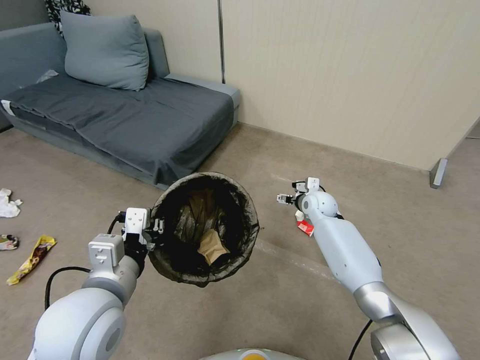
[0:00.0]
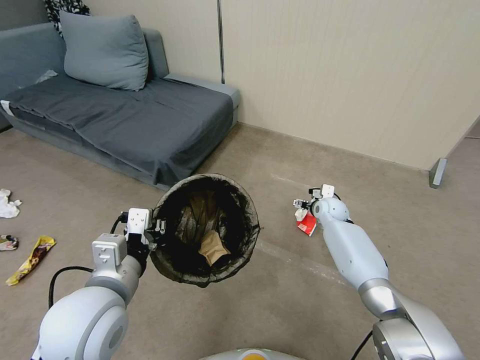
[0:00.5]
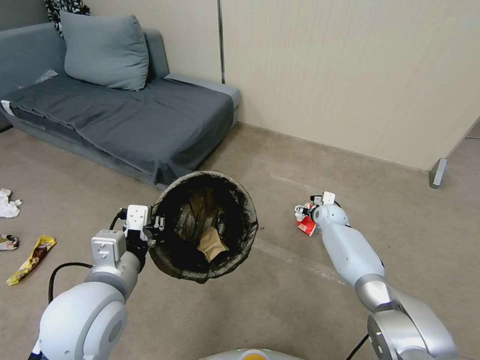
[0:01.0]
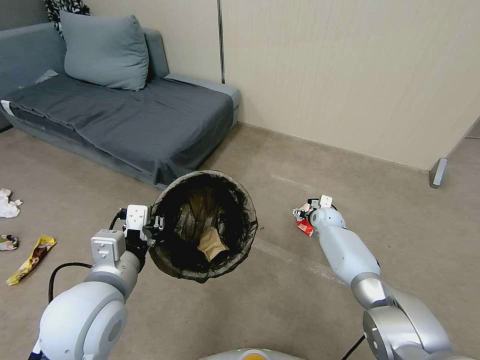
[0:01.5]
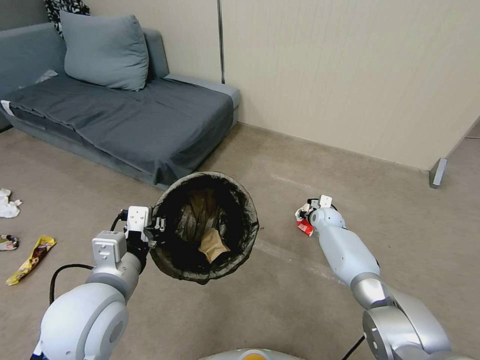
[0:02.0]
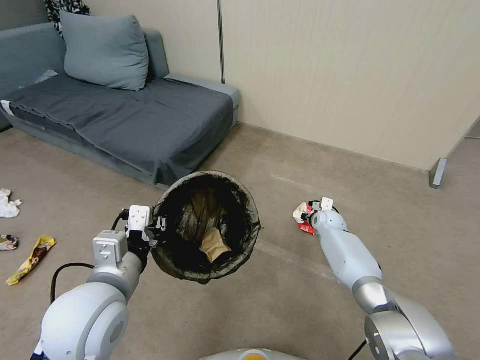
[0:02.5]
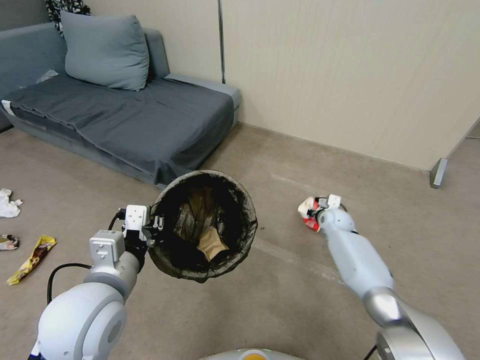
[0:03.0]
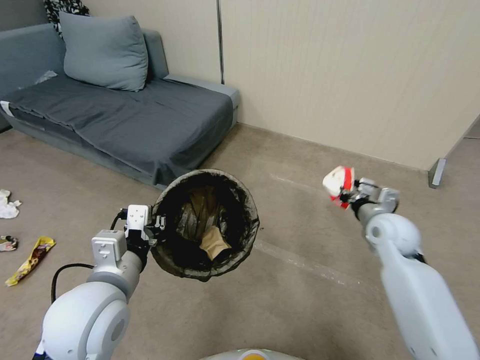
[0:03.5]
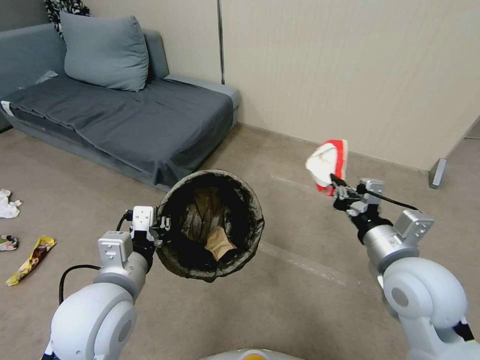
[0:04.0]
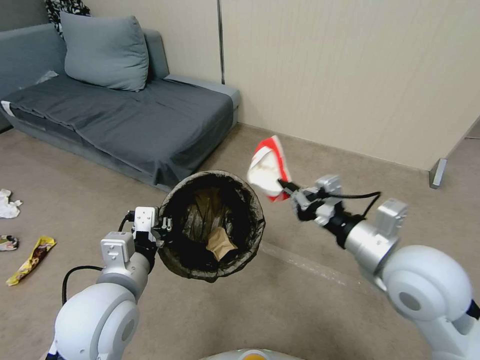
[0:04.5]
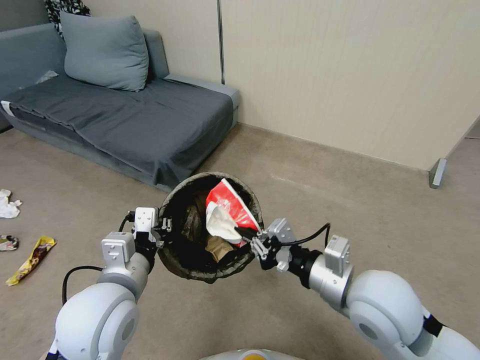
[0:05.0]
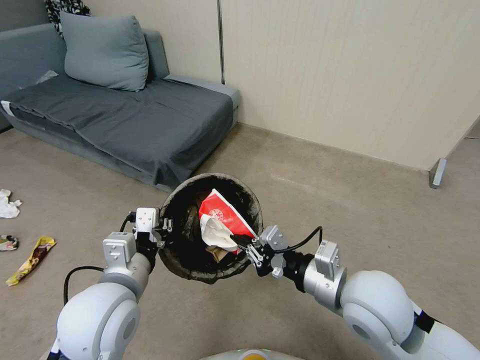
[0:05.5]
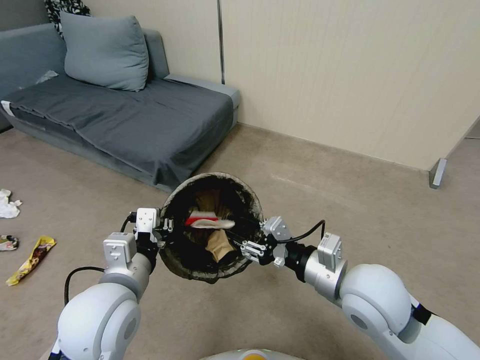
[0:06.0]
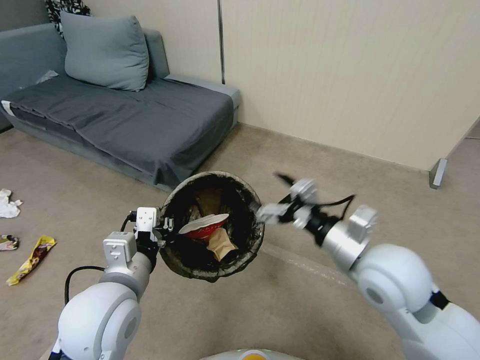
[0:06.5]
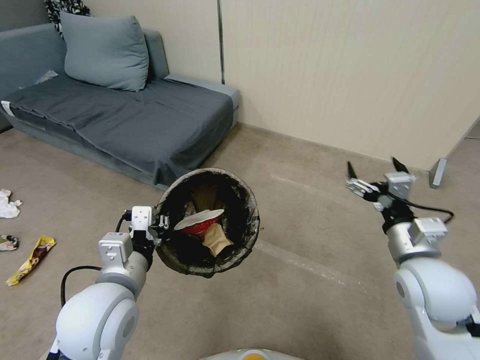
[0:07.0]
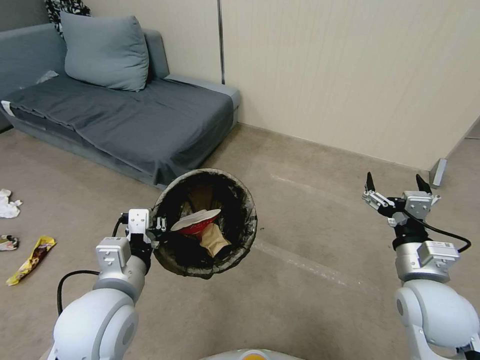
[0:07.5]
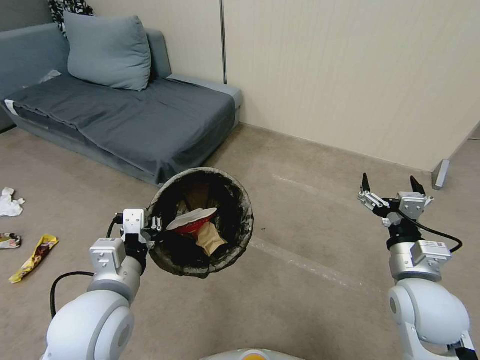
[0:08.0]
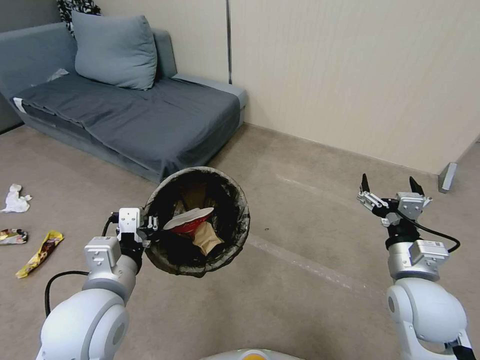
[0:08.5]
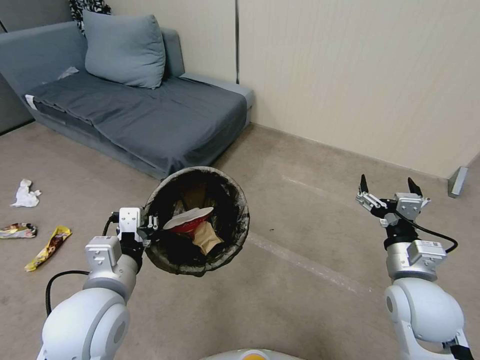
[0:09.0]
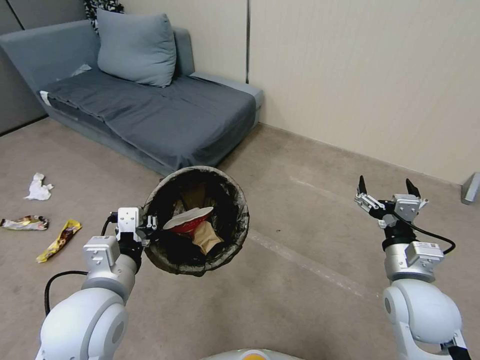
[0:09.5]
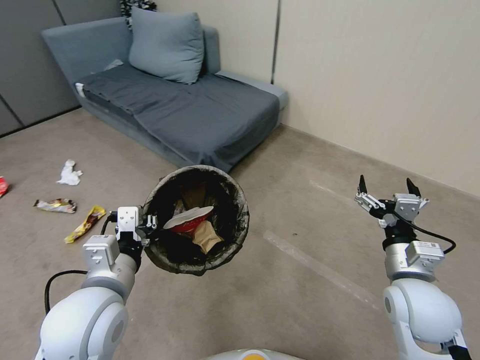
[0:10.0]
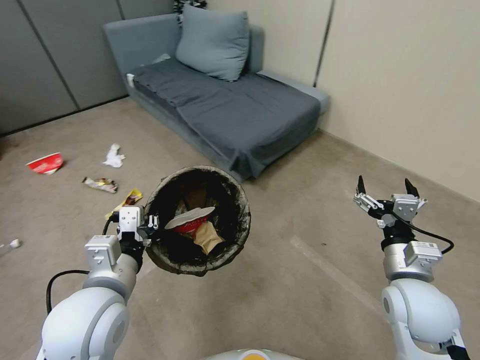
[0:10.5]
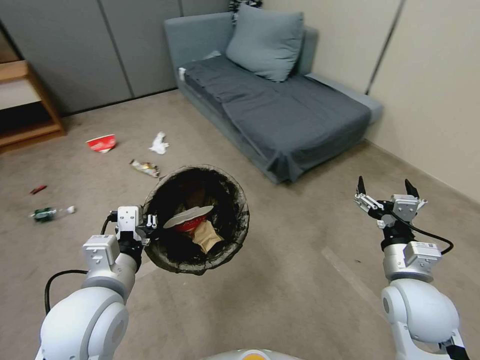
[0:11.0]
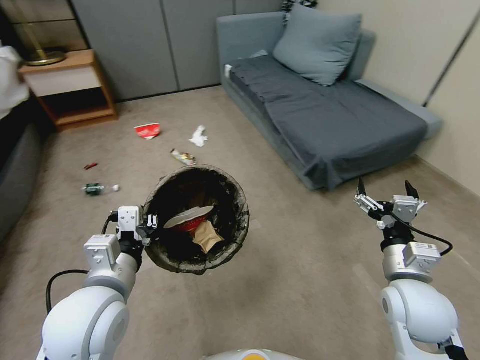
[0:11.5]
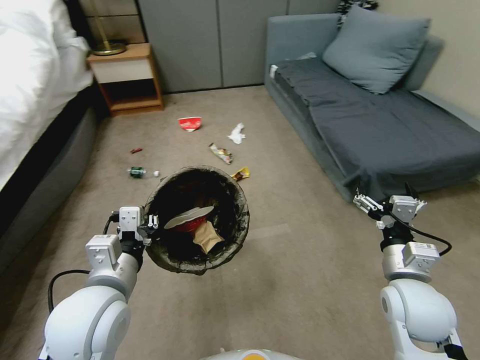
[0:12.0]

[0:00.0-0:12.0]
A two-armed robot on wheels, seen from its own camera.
Task of the whole recording: Pick up the trash bin, then pick up the garbage from the floor and place it into the trash bin.
0:00.0 to 0:02.0: The right gripper travels downward and to the right by roughly 10 cm, and closes.
0:02.0 to 0:04.0: The right gripper goes about 40 cm backward and upward, and closes its fingers.
0:04.0 to 0:06.0: The right gripper travels to the left by roughly 5 cm, and opens its fingers.
0:06.0 to 0:08.0: The right gripper is displaced to the right by approximately 10 cm, and opens.

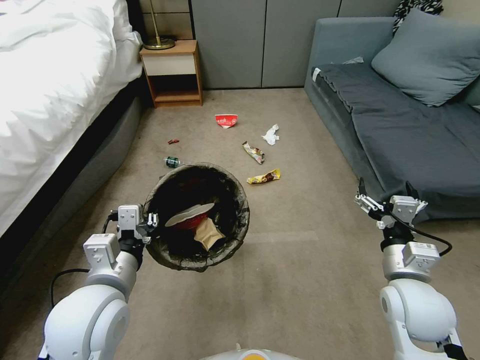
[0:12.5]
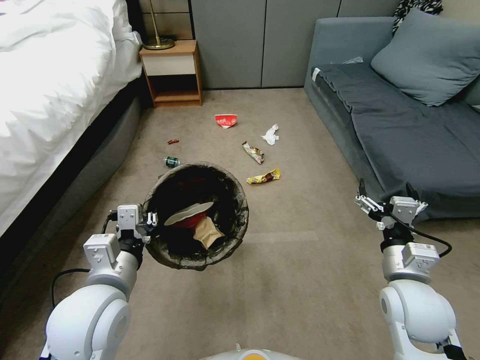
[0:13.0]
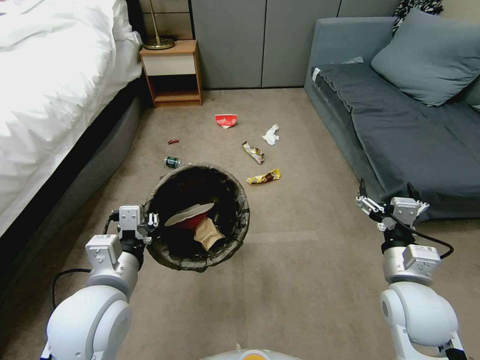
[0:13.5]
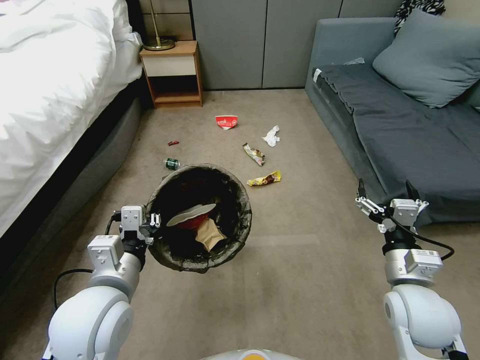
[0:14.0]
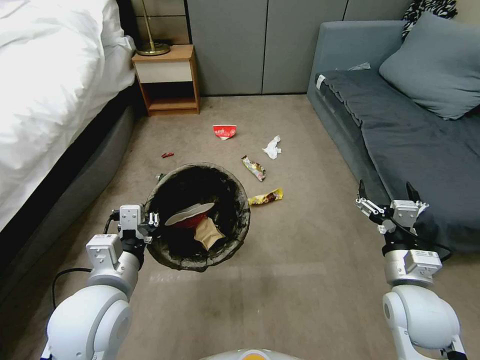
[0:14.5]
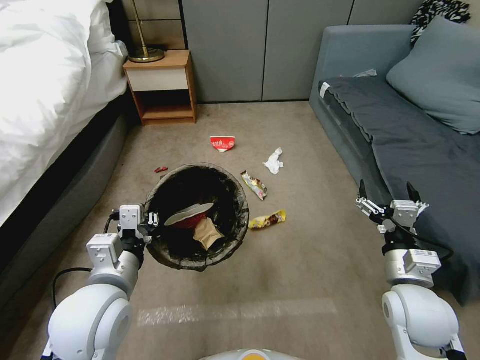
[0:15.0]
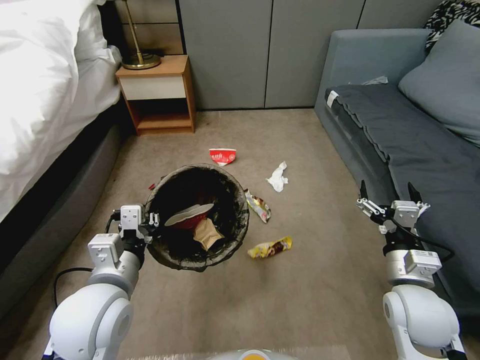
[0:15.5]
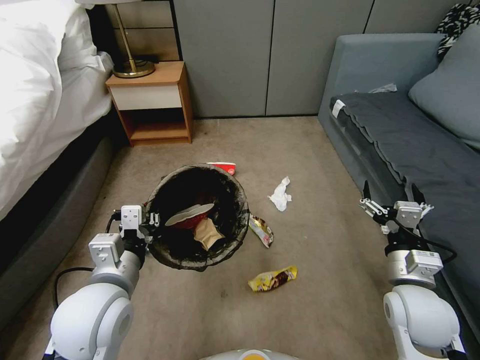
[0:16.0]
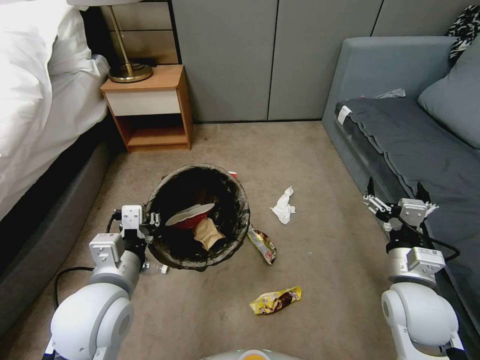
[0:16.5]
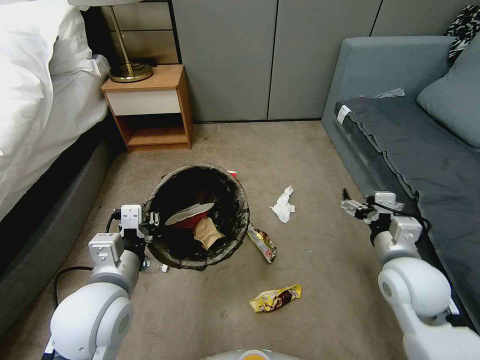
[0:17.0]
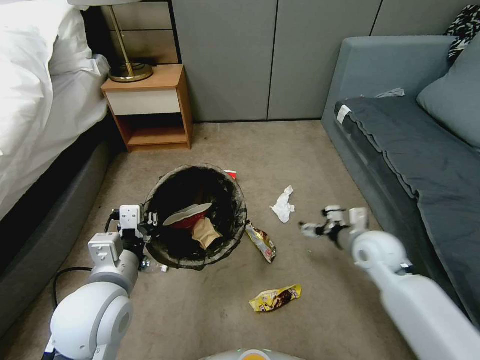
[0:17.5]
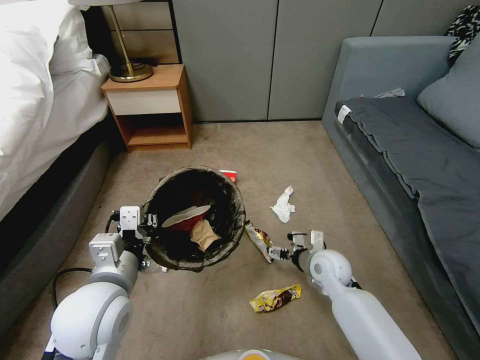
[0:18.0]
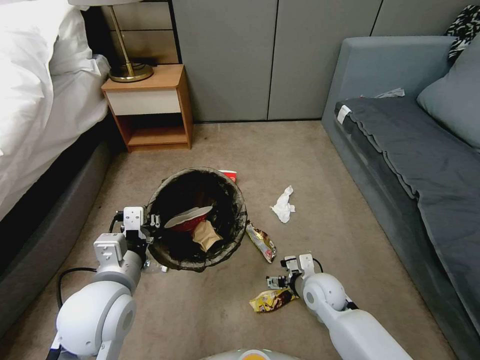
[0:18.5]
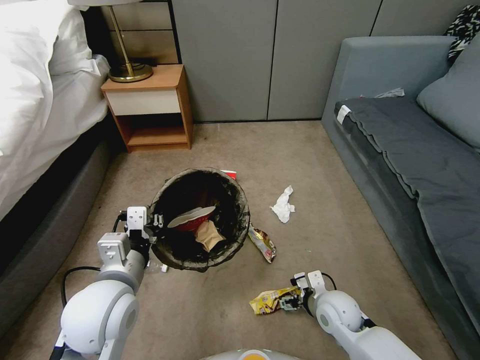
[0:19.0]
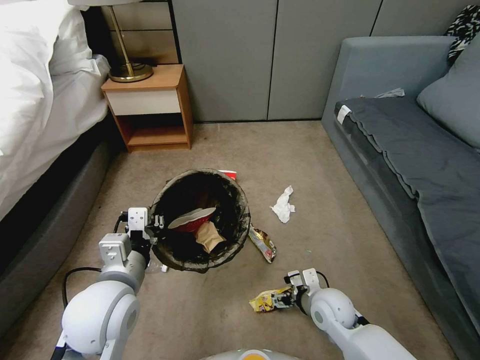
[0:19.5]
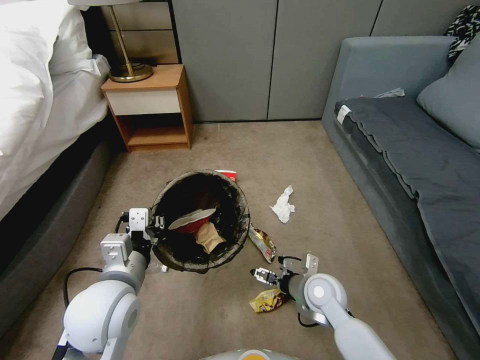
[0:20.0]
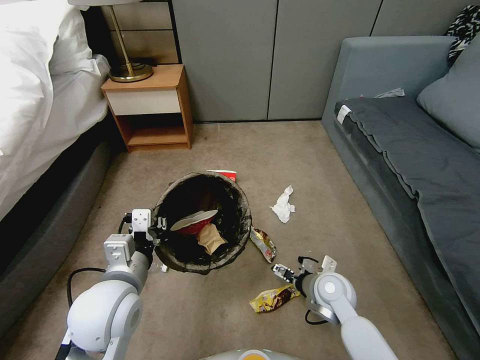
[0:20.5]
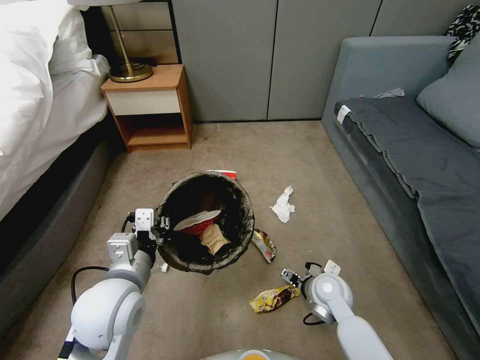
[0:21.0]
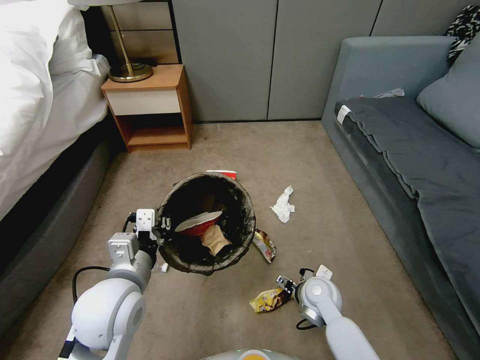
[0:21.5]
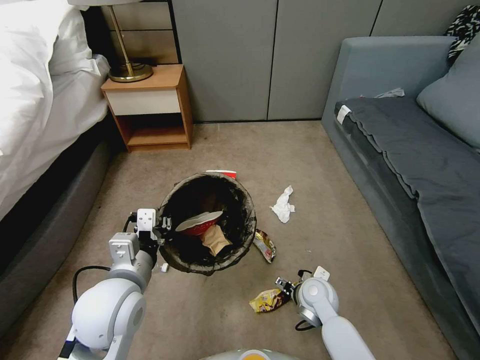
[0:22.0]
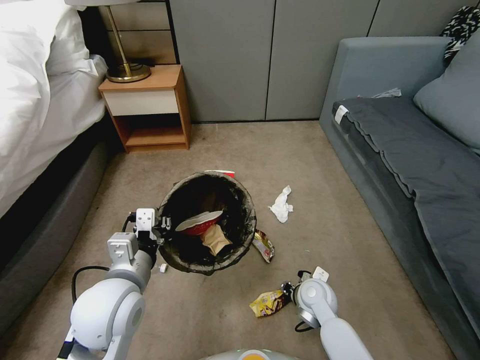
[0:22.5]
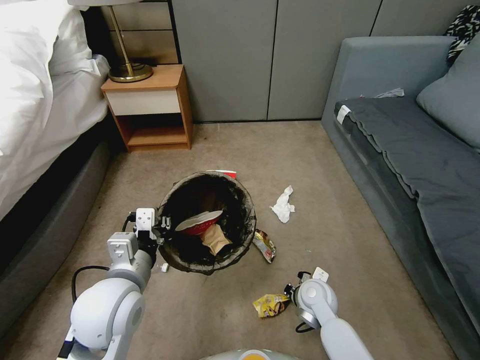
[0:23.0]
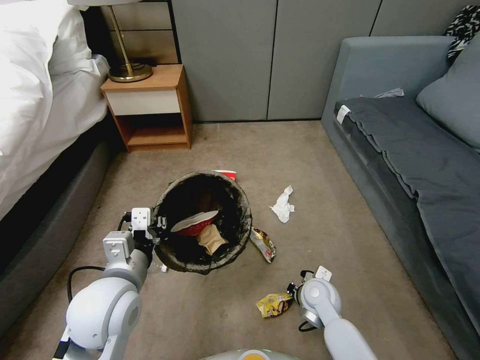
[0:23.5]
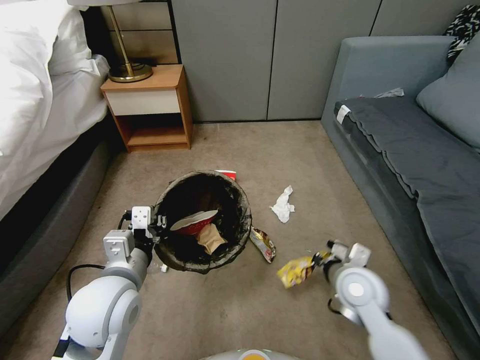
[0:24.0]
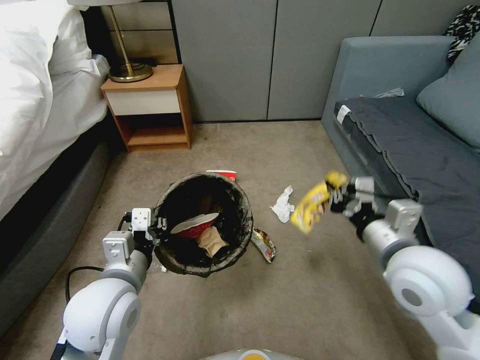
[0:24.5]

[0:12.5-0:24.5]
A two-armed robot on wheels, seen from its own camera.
Task of the whole recording: Pick up the trash bin, then pick up the garbage from the floor and place it into the trash bin.
0:12.5 to 0:14.5: The two grippers keep their place.
0:16.5 to 0:18.5: The right gripper heads downward, to the left and forward, covering approximately 20 cm.
0:20.5 to 0:22.5: The right gripper ends up about 5 cm from where it was, and closes its fingers.
0:22.5 to 0:24.5: The right gripper travels upward by approximately 30 cm, and closes.

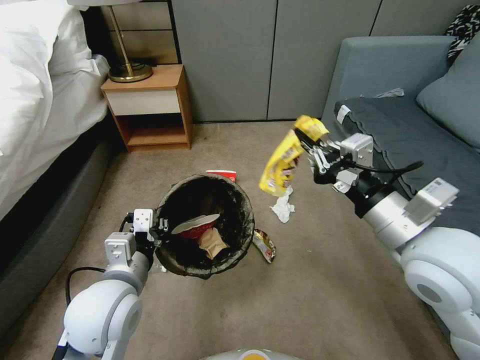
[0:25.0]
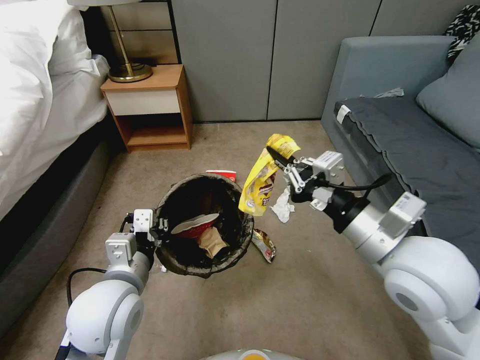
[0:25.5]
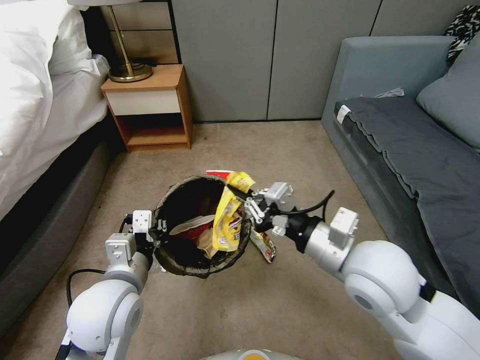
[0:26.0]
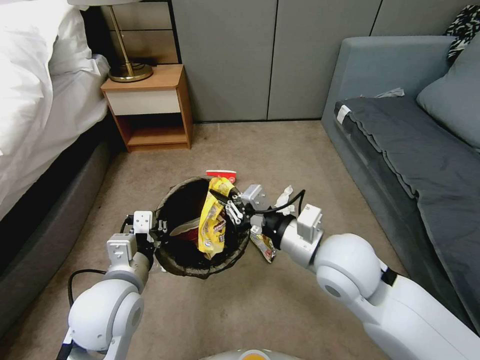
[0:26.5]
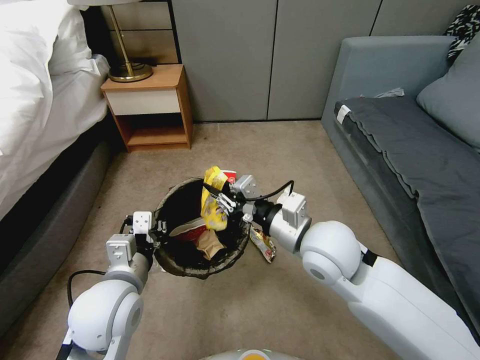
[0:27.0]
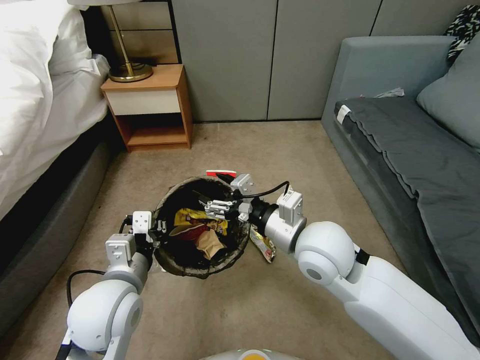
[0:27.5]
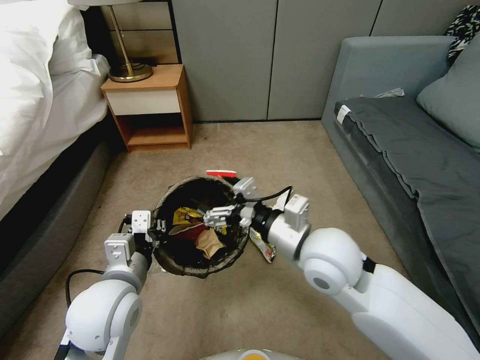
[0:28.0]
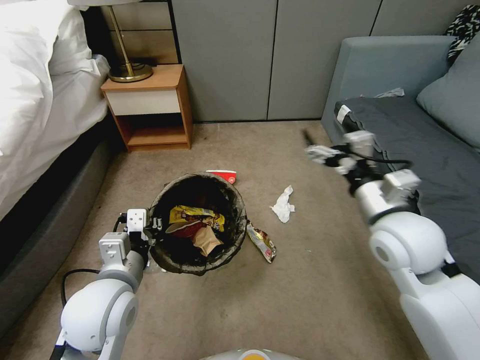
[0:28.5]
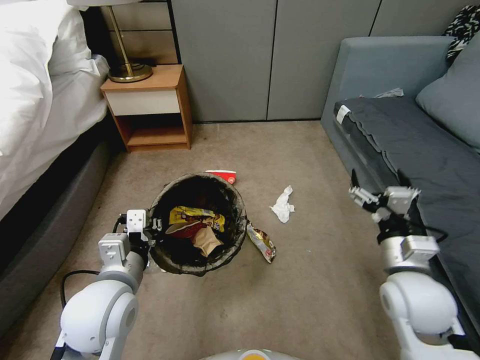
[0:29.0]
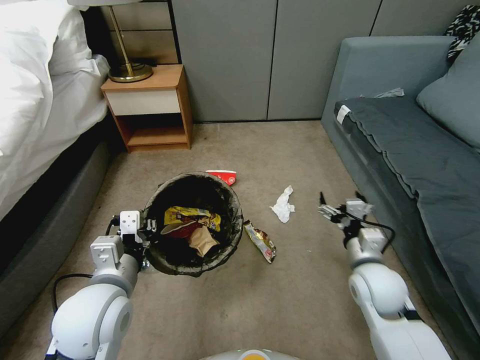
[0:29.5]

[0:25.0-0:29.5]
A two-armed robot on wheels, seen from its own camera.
Task of the whole recording: Pick up the trash bin, then pick up the garbage from the floor and place it into the trash bin.
0:25.0 to 0:27.0: The right gripper goes about 15 cm to the left, downward and forward.
0:27.0 to 0:29.5: The right gripper is displaced downward and to the right by roughly 20 cm, and opens its fingers.
